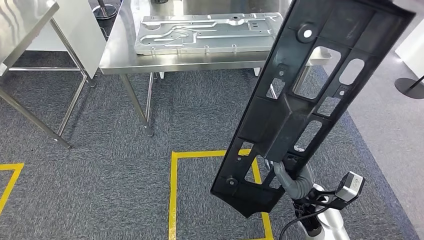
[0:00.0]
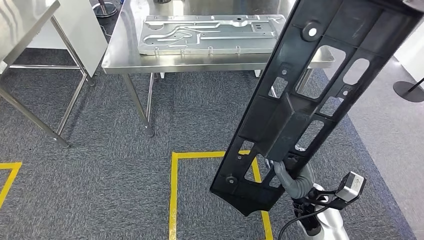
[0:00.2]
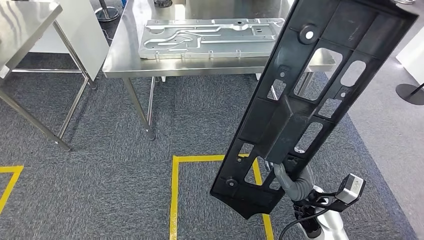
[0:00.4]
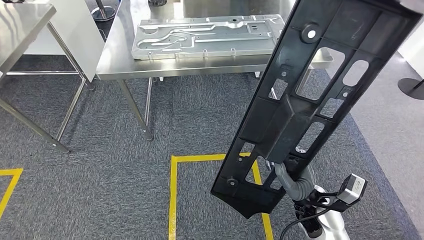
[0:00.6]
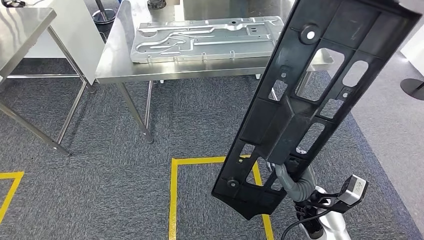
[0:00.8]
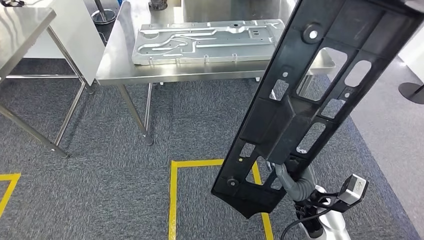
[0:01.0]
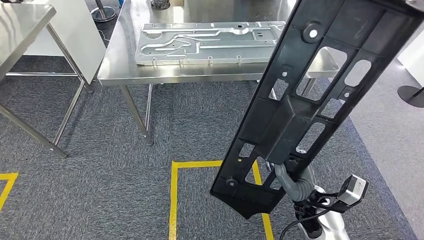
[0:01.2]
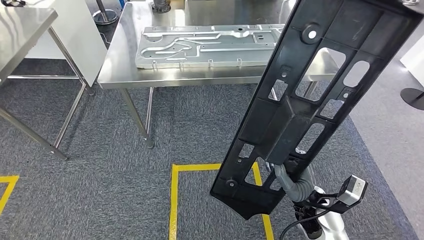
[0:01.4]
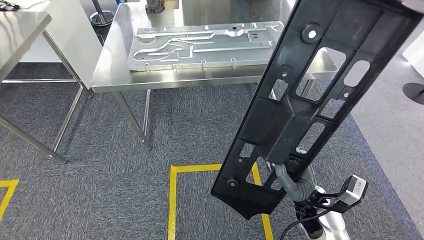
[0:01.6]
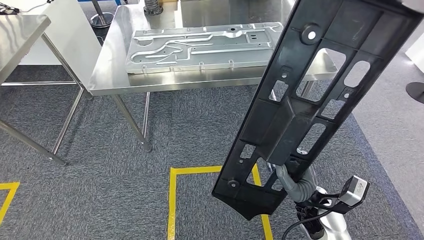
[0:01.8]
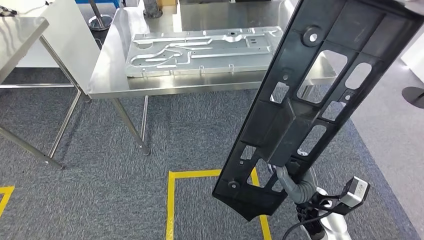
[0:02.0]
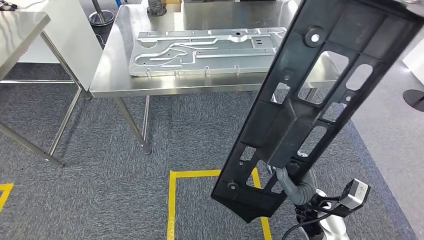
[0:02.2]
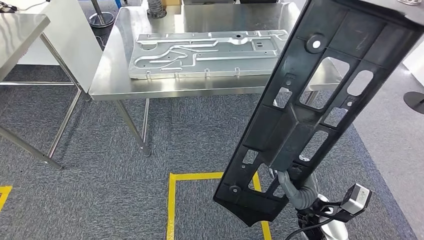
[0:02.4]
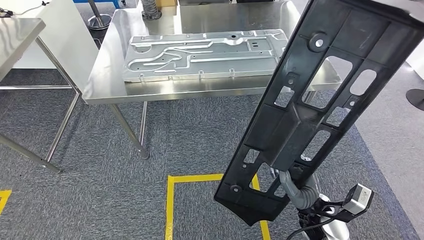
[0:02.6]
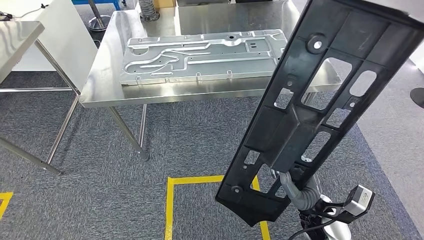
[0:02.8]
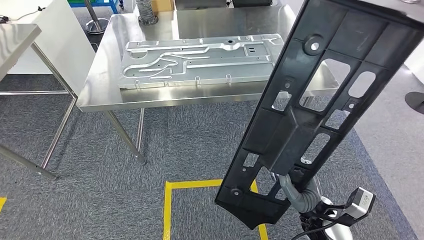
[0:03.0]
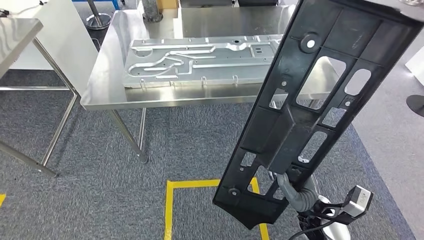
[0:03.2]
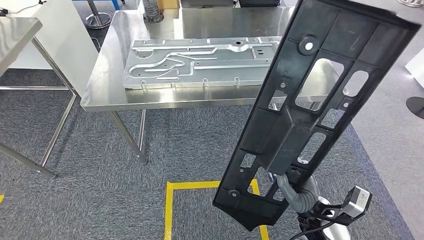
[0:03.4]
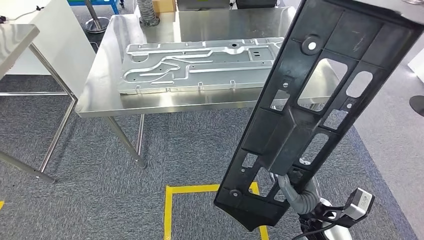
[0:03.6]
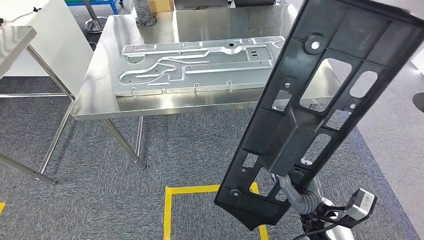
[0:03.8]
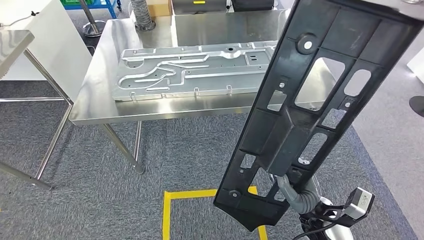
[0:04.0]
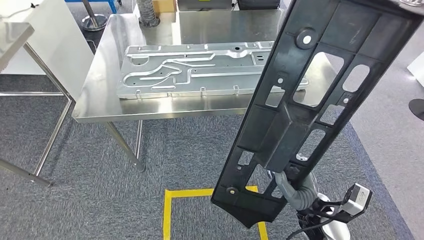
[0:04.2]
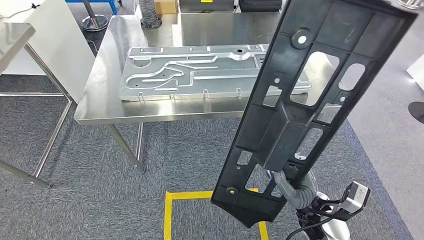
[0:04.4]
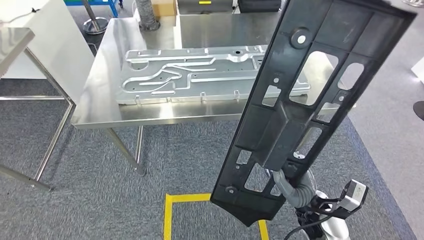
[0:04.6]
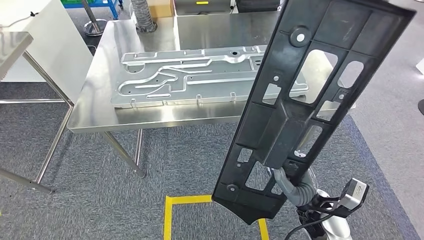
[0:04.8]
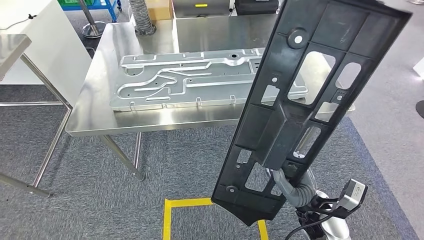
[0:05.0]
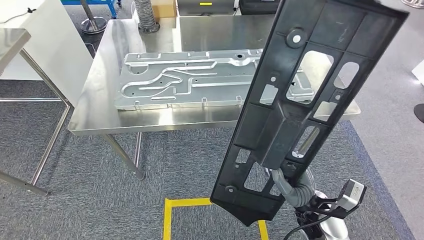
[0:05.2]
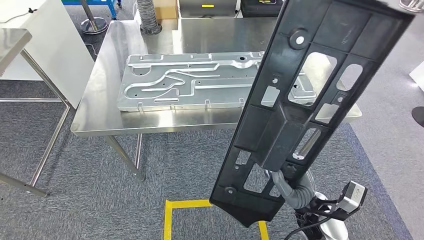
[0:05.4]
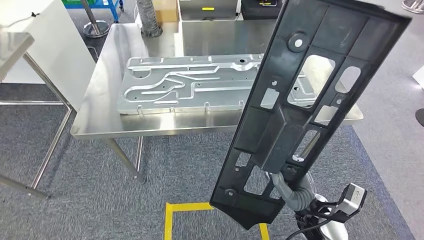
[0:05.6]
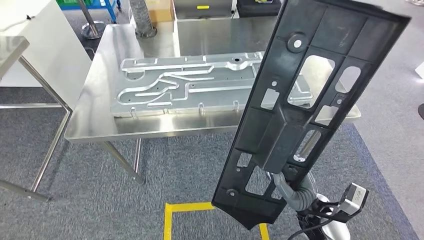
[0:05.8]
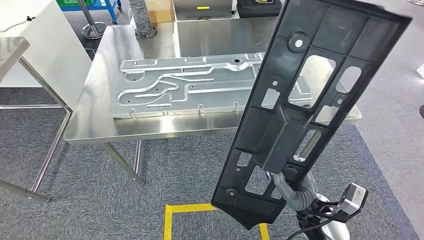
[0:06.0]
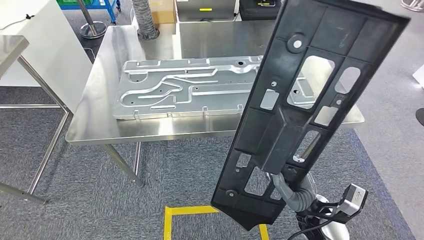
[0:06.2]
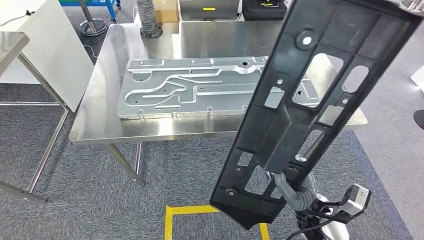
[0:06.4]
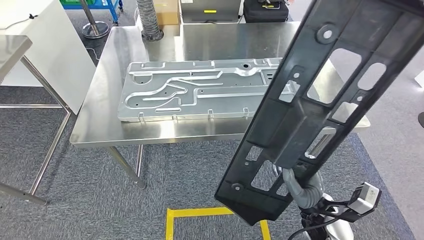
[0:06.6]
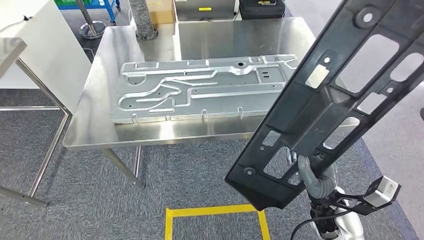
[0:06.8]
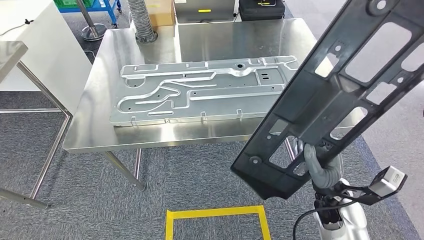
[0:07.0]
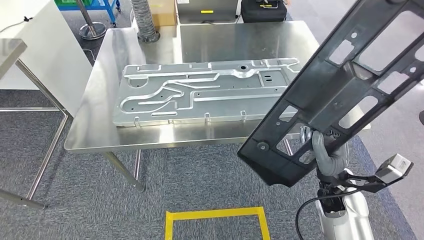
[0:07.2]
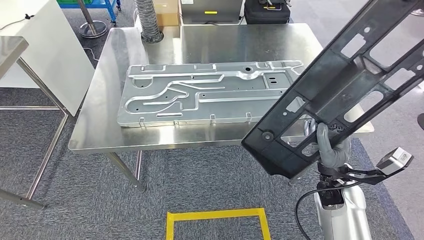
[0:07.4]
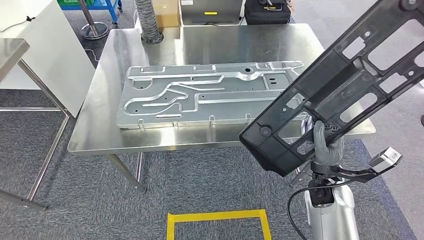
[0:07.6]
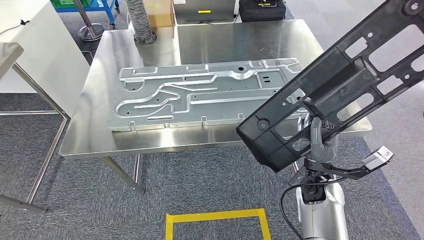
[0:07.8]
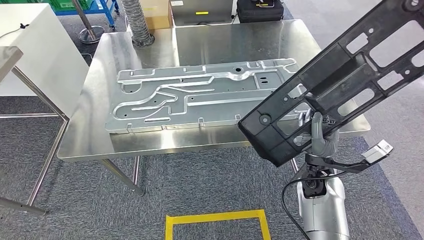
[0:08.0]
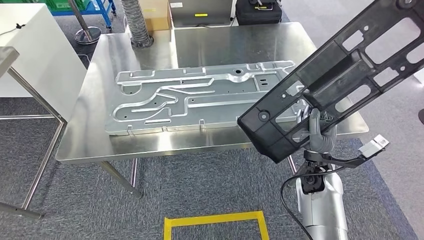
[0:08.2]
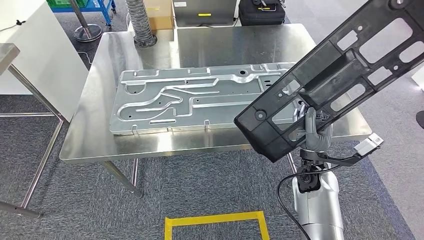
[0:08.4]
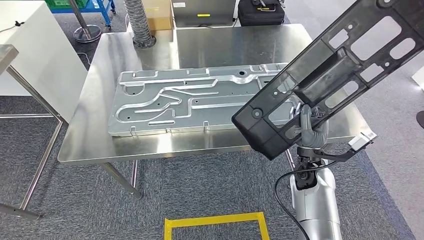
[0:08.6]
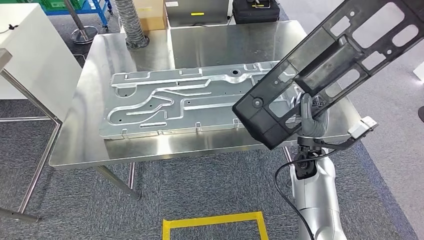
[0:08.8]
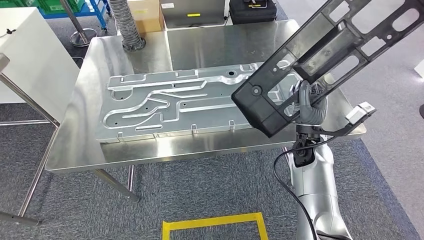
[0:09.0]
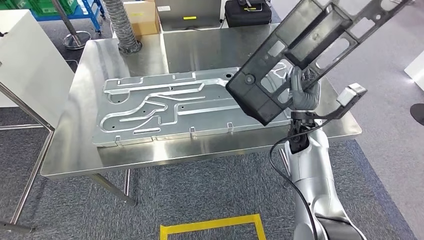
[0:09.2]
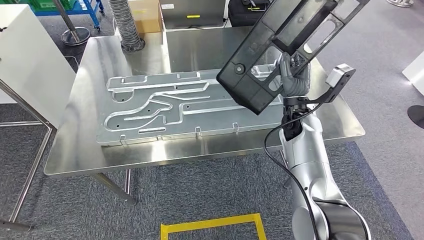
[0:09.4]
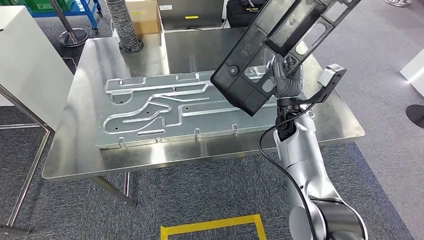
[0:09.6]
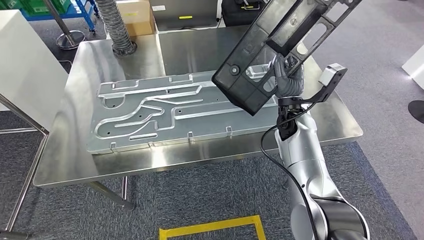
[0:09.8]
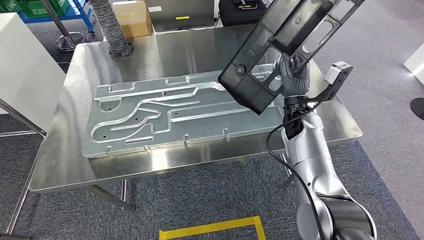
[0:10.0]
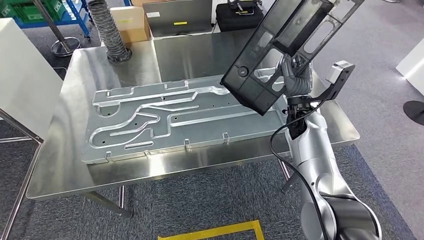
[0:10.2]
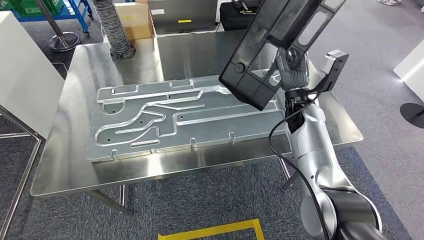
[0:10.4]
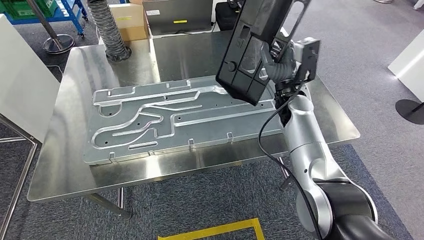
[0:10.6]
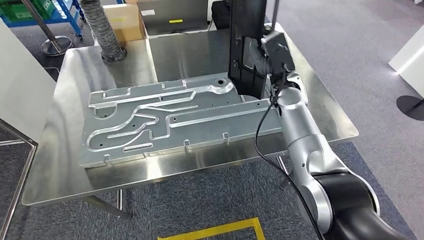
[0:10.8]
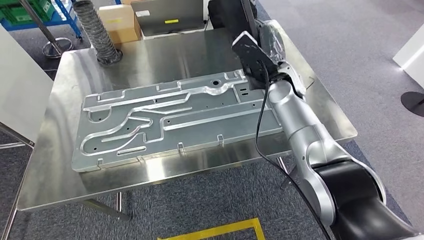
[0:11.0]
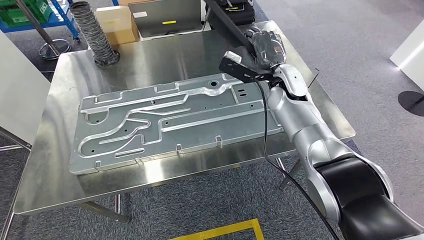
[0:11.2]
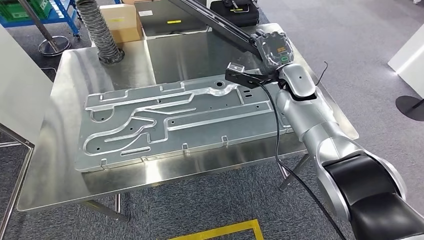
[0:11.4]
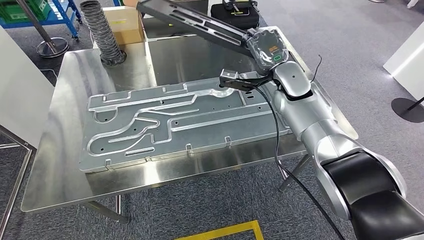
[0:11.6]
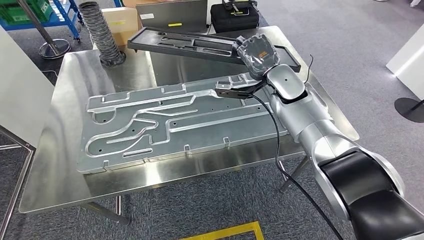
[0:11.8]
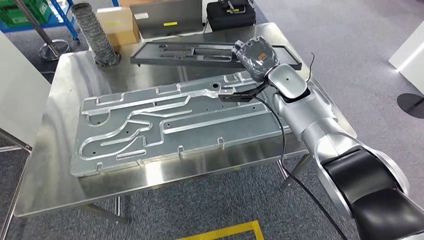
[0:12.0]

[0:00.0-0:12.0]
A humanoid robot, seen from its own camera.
Step, 0:00.0 to 0:08.4: Move the large material to the workbench.

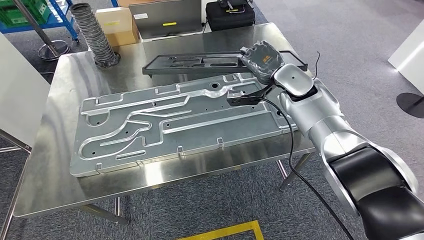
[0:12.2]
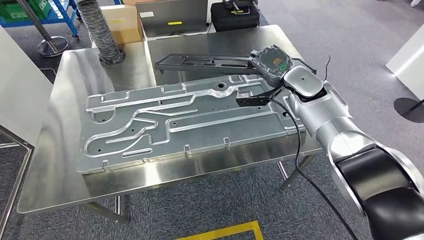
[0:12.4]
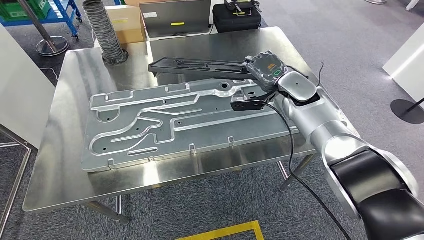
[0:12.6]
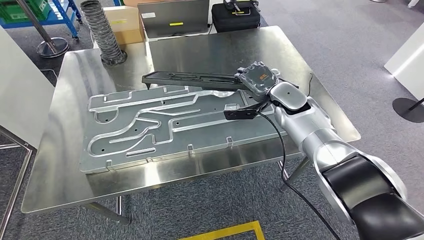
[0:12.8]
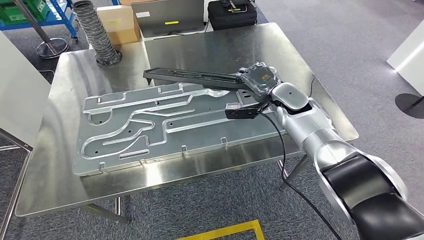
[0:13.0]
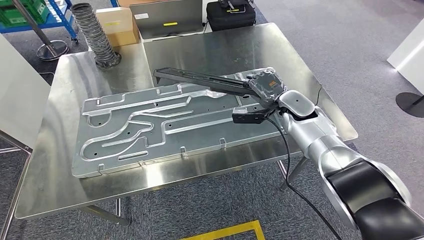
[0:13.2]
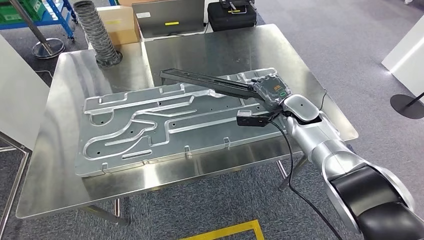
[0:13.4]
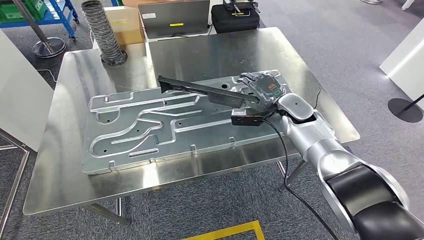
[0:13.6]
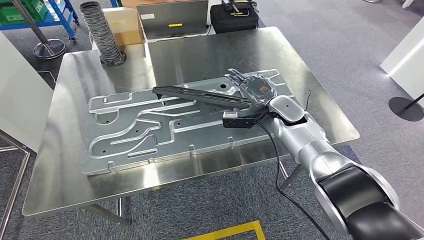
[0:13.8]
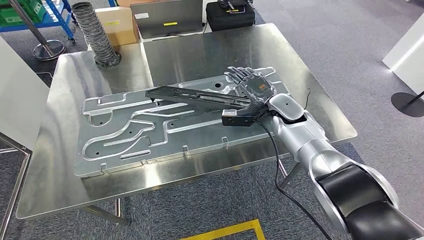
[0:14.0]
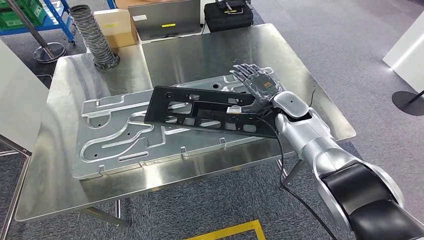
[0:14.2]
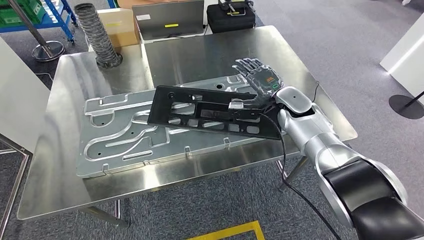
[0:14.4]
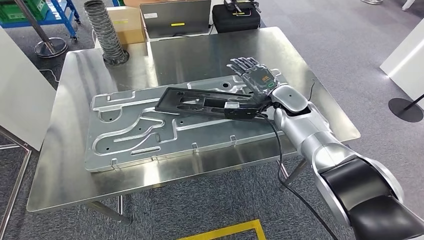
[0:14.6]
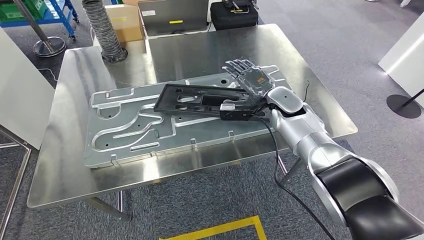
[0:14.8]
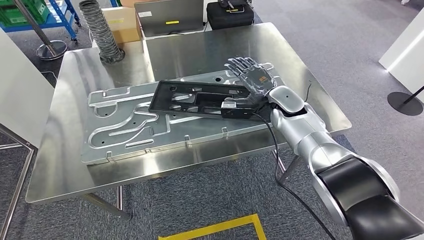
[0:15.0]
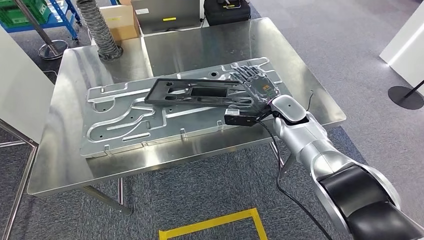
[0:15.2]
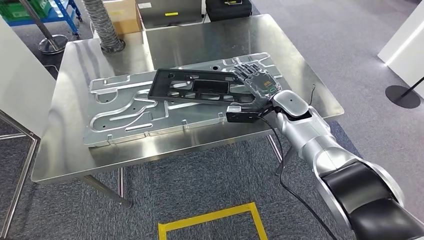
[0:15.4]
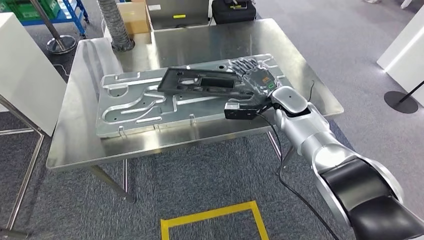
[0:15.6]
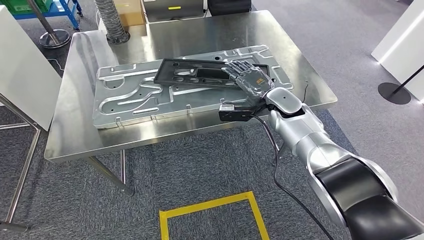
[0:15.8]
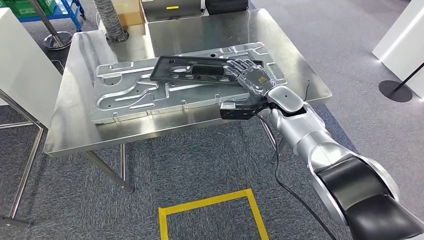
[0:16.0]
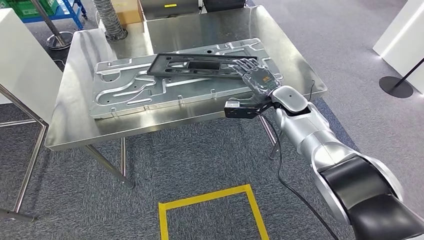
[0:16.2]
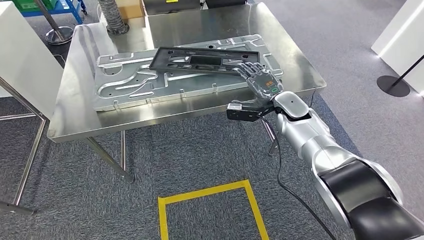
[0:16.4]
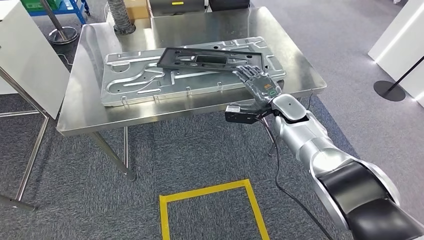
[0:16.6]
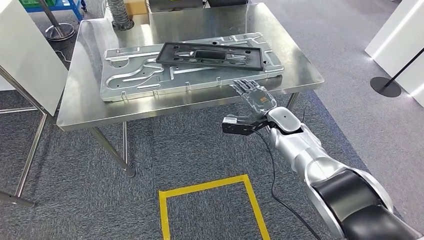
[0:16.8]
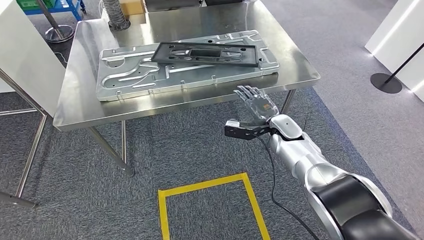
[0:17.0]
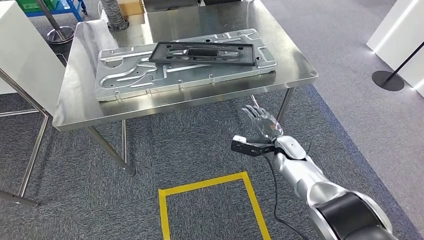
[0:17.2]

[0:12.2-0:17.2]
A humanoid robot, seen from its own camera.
Step, 0:12.2 to 0:14.2: Insert the large material into the corresponding slot on the workbench.
